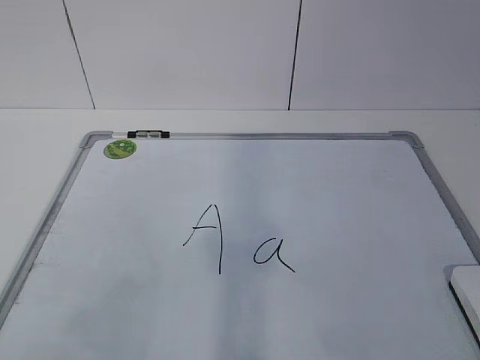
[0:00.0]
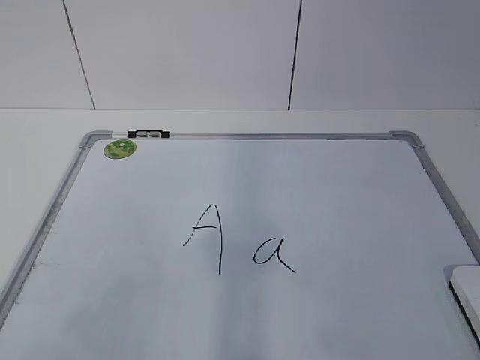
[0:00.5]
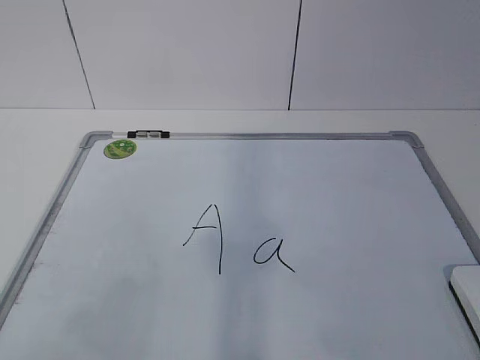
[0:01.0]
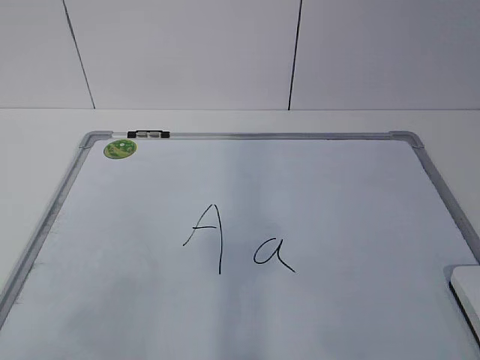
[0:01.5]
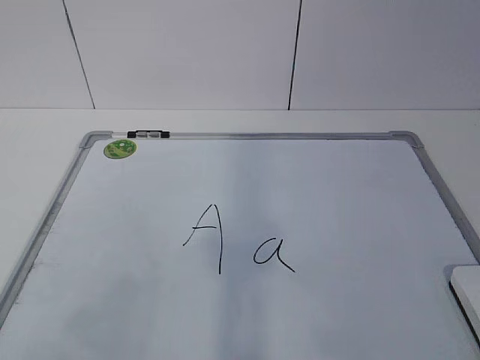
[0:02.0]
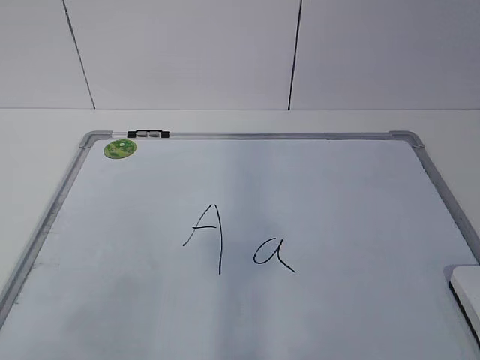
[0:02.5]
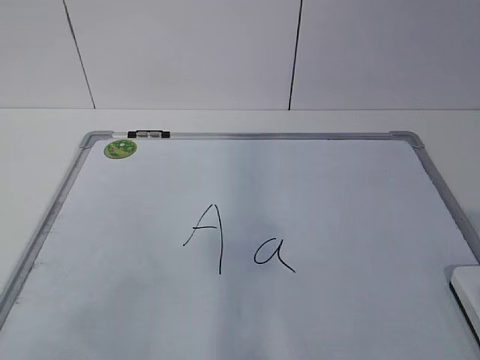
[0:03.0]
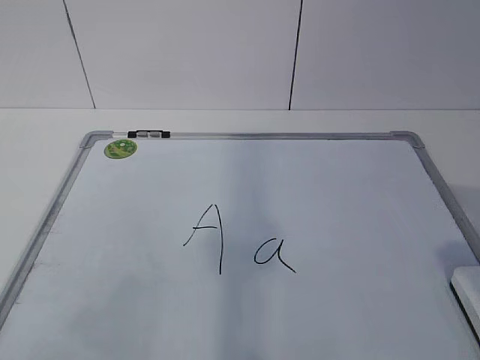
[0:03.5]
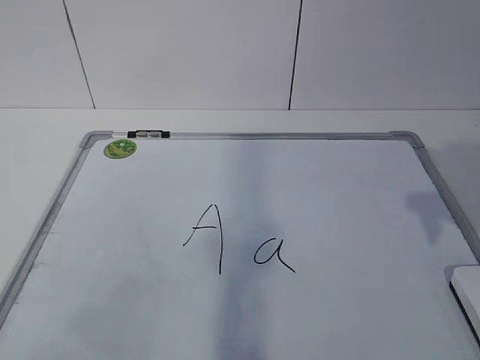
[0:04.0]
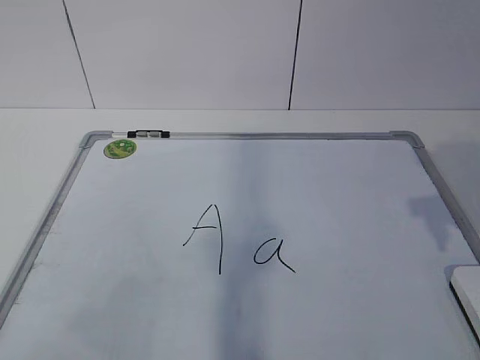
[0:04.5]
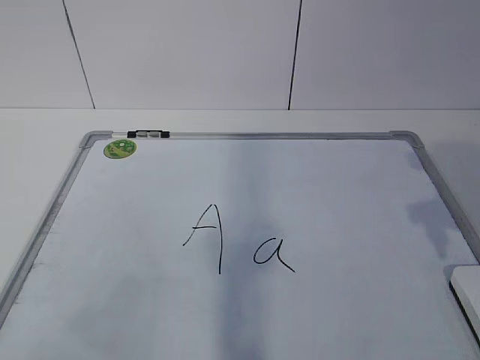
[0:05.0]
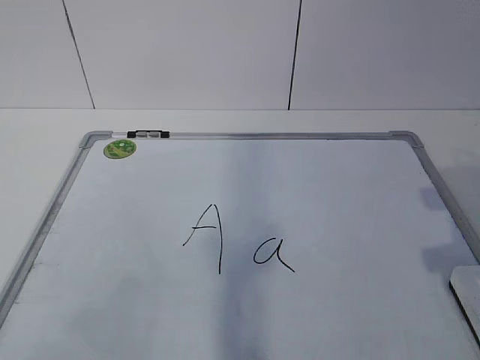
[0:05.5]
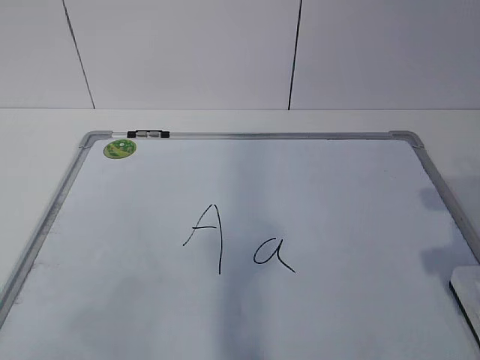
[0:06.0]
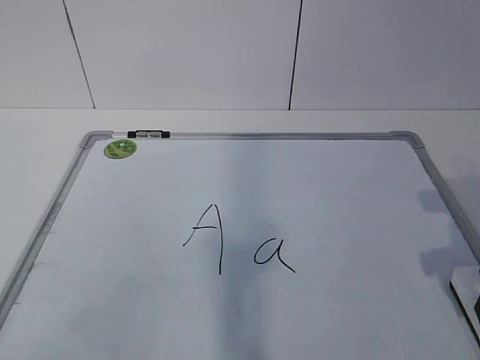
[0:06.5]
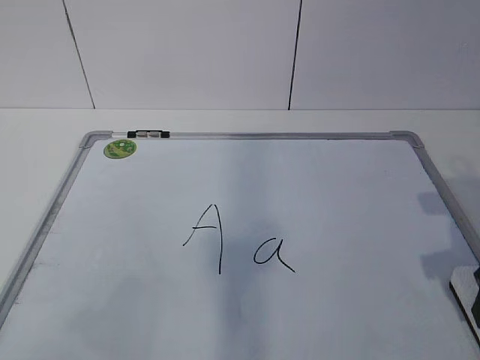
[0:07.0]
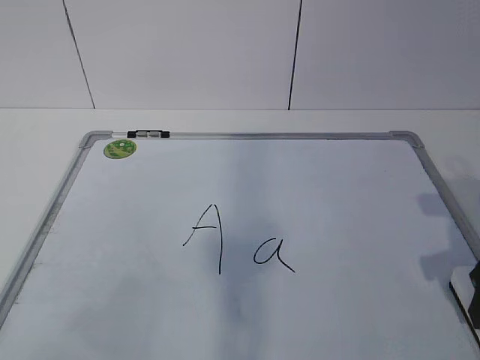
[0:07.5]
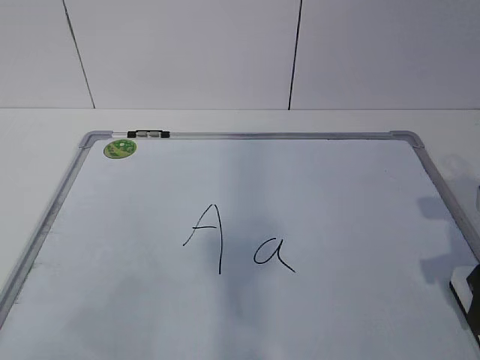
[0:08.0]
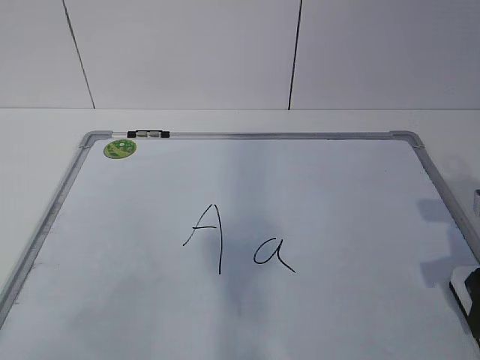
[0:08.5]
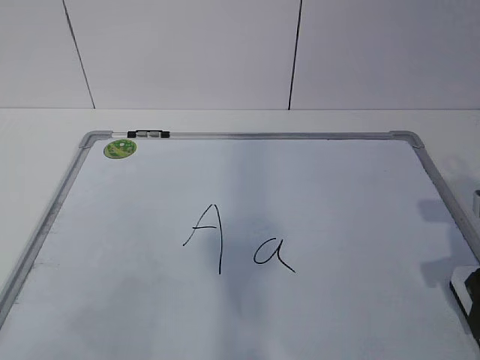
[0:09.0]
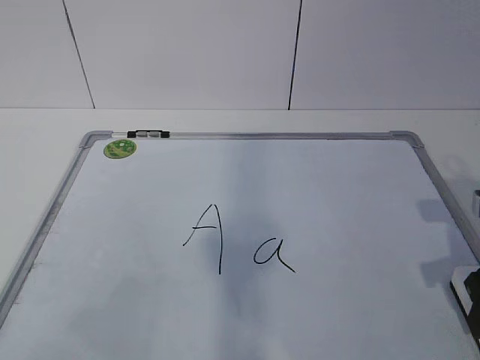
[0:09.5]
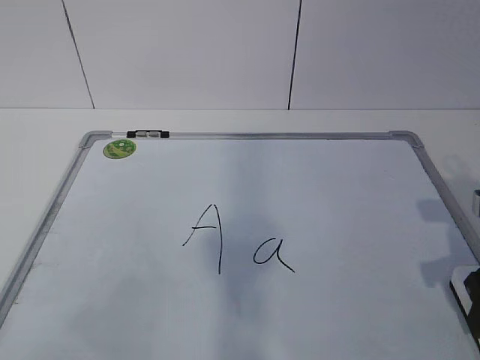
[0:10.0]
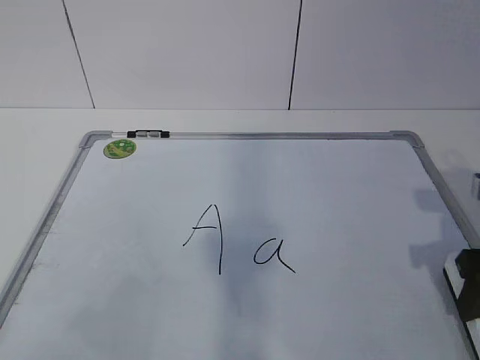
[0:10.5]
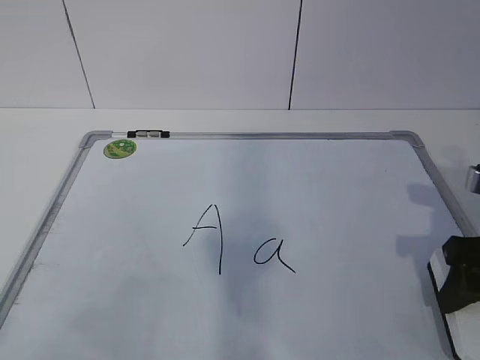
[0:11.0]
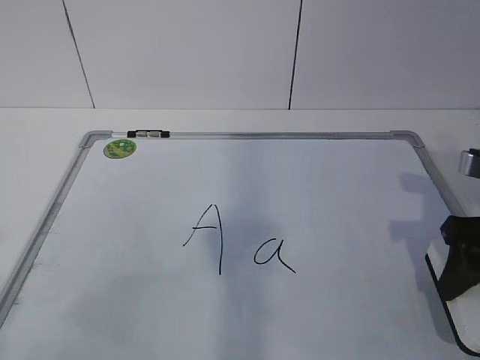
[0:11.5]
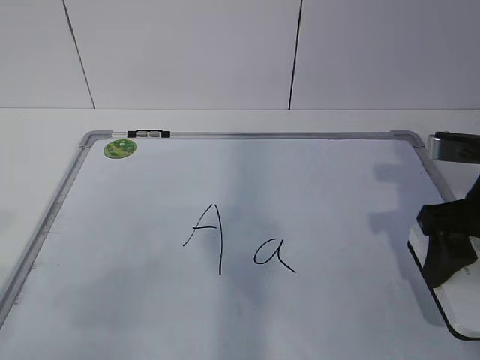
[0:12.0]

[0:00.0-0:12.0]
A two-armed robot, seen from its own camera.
Task of the whole recording: pick up the eraser on the blackboard and erase the letter "a".
0:02.0 to 0:04.0: The right gripper goes roughly 20 cm forward, and opens.
0:04.0 to 0:06.0: The right gripper goes approximately 10 cm downward.
0:10.0 to 0:12.0: The right gripper changes place by some 10 cm.

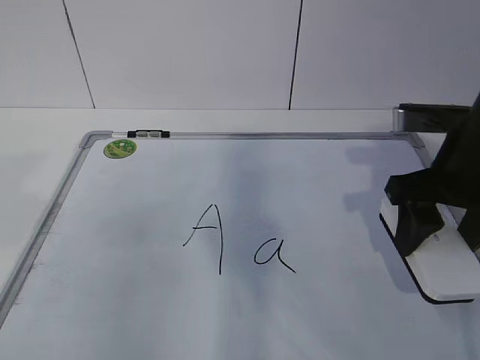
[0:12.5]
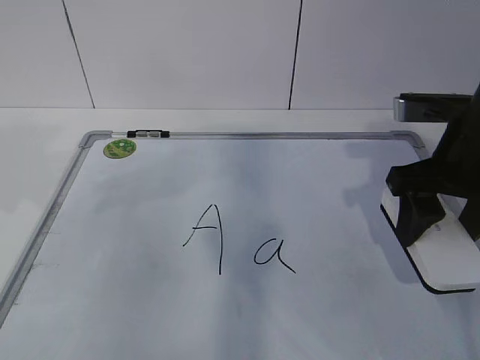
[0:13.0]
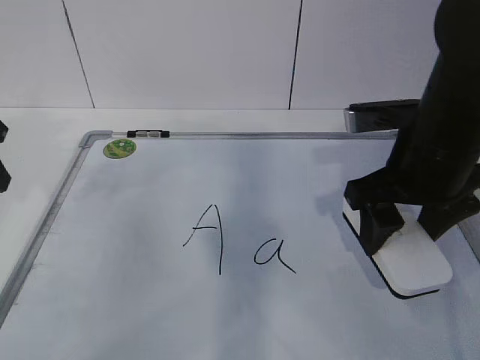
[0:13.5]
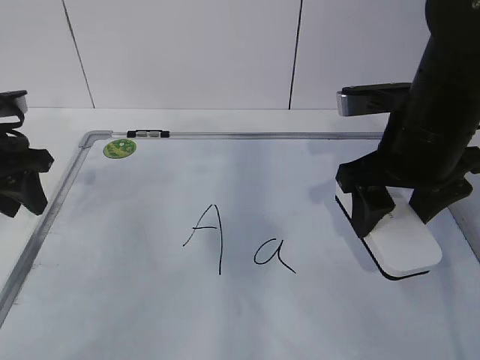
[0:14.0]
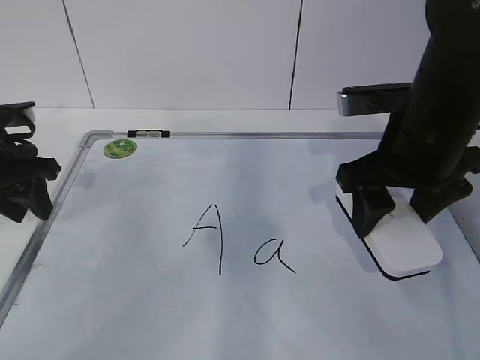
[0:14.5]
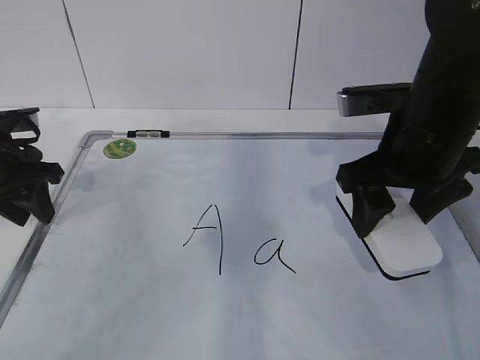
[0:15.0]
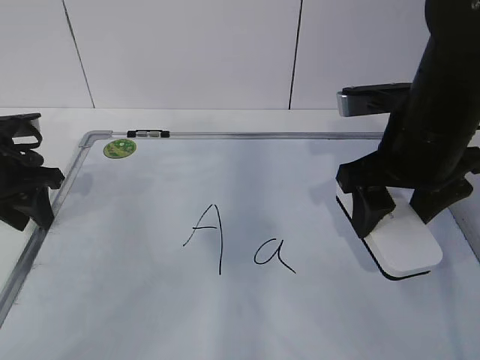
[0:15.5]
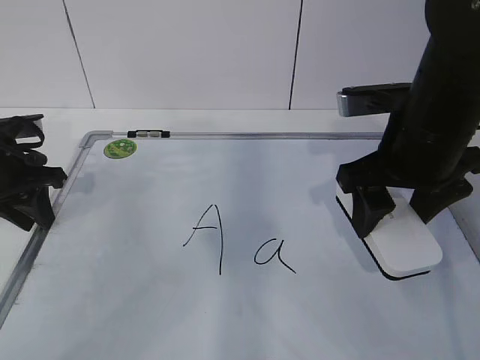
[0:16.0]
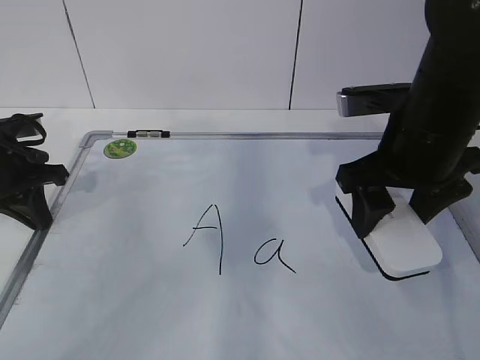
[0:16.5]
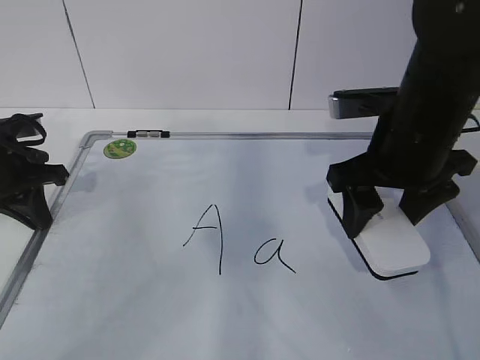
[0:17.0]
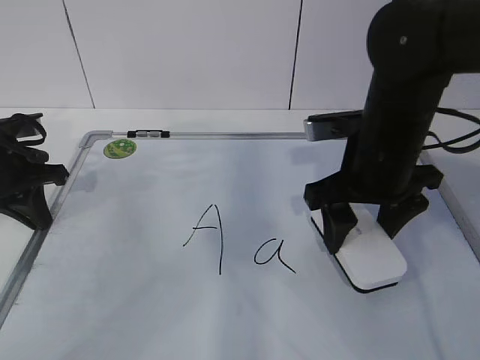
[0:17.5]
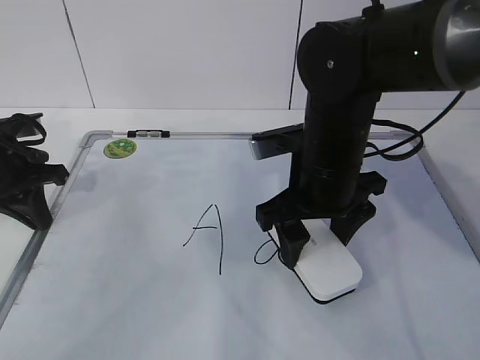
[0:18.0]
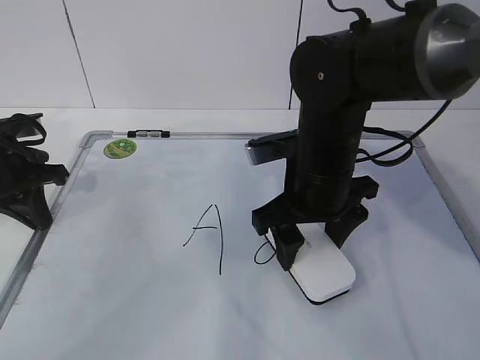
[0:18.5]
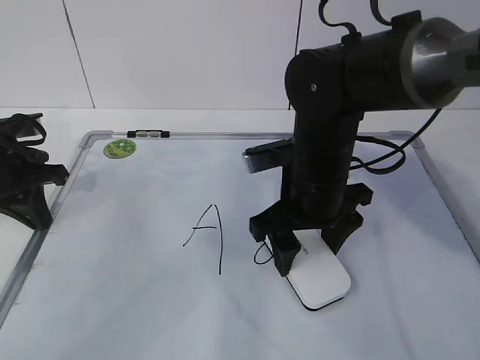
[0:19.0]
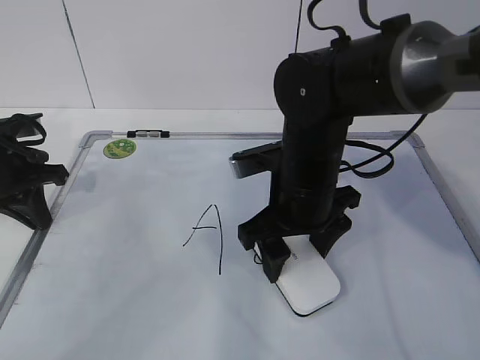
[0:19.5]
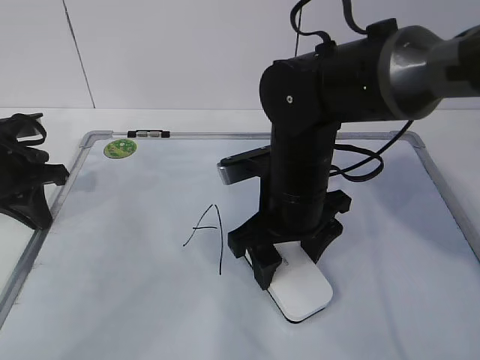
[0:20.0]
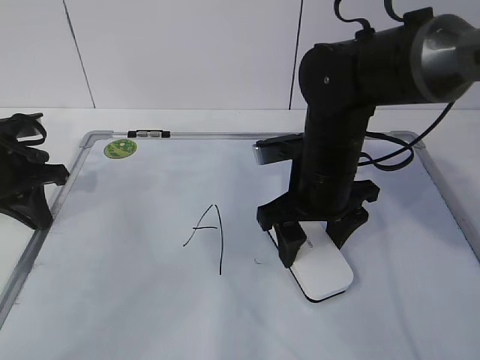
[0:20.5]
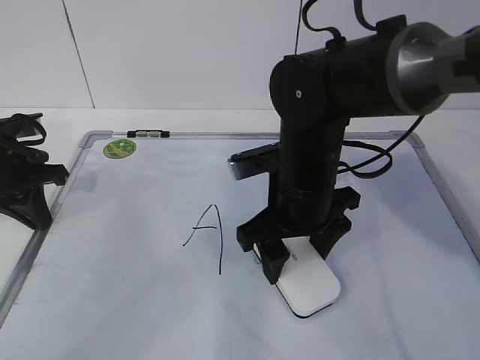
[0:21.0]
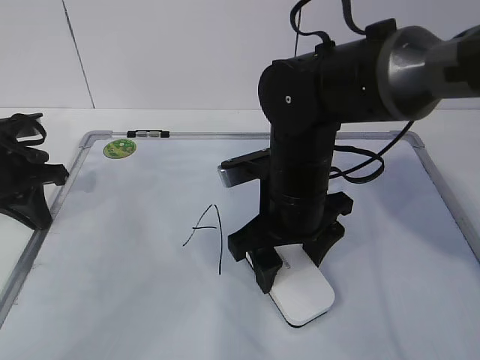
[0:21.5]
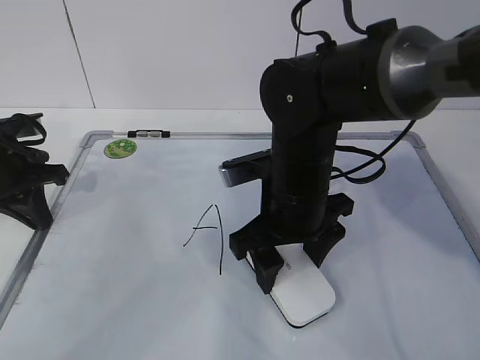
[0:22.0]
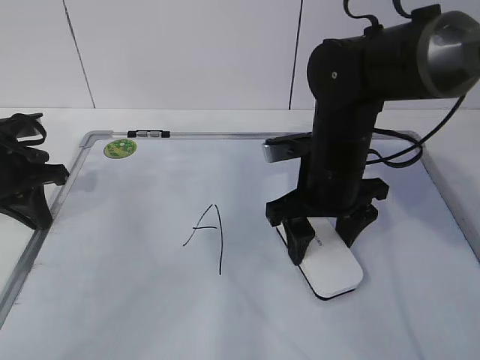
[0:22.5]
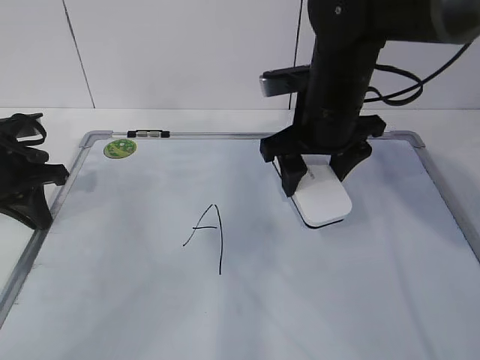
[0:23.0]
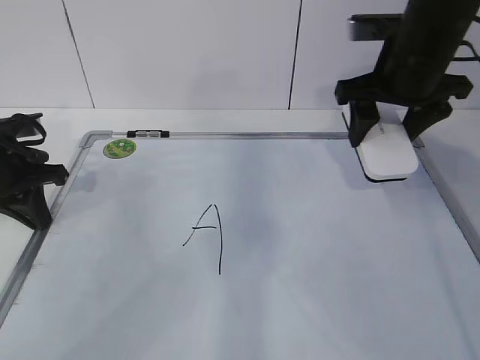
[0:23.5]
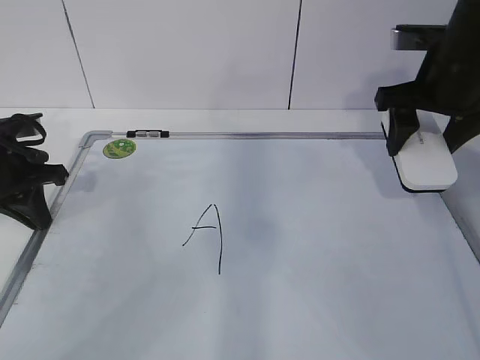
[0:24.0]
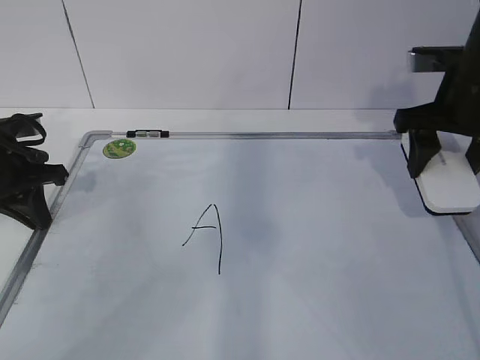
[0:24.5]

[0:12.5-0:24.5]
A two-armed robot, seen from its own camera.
Task of the whole recording: pick up the eraser on the blackboard and erase the letter "a".
Step, 0:14.0 to 0:18.5: Erase the letter a with your right hand.
Step, 0:19.0 to 0:23.5: Put down the eraser with your right hand.
0:12.5 to 0:14.5: The left gripper is displaced forward and downward by about 25 cm.
0:14.5 to 0:16.5: The left gripper closes up.
0:16.5 to 0:18.5: The right gripper goes roughly 10 cm to the left and downward.
0:18.5 to 0:22.5: The grippers stay close to where they were, moving slightly.
0:22.5 to 0:24.5: The right gripper shifts some 15 cm to the right and upward.

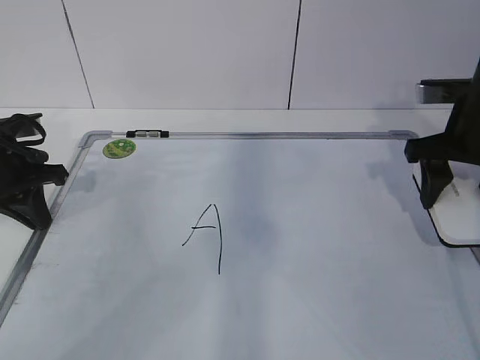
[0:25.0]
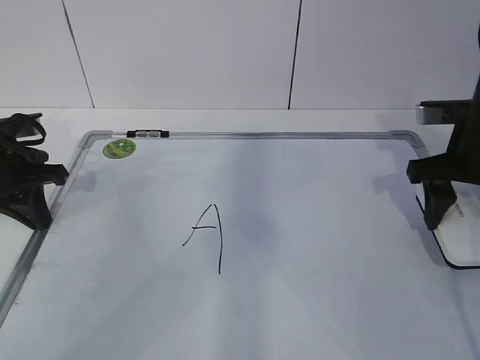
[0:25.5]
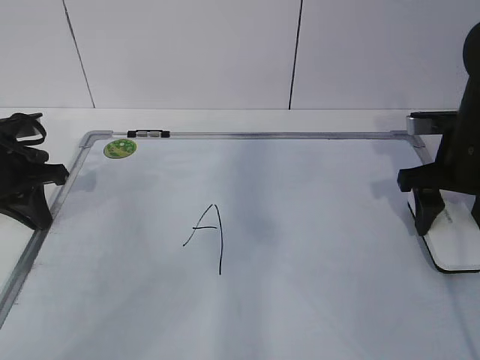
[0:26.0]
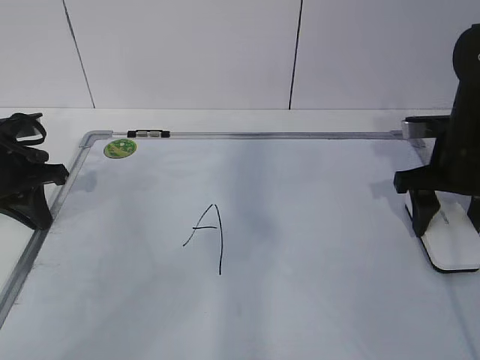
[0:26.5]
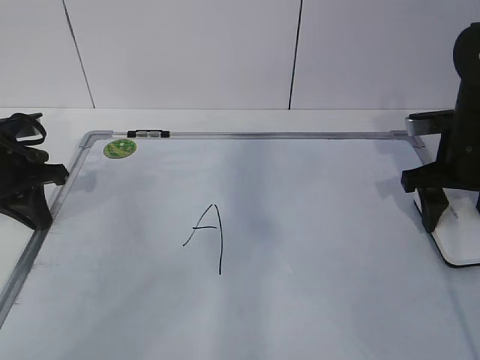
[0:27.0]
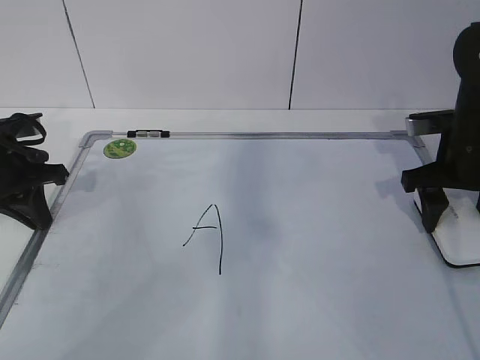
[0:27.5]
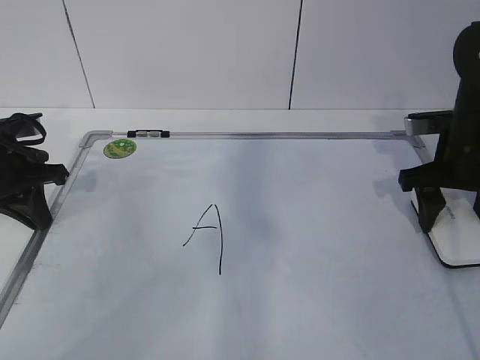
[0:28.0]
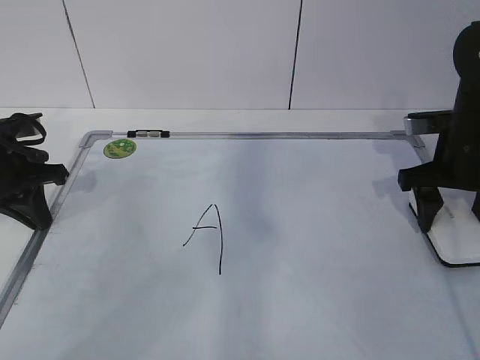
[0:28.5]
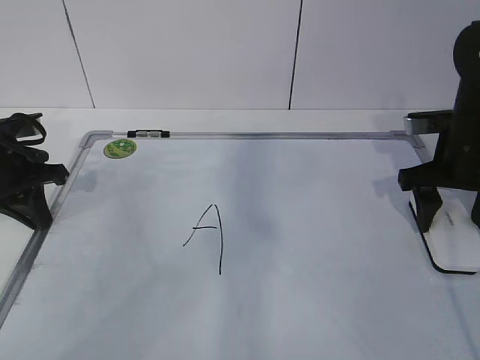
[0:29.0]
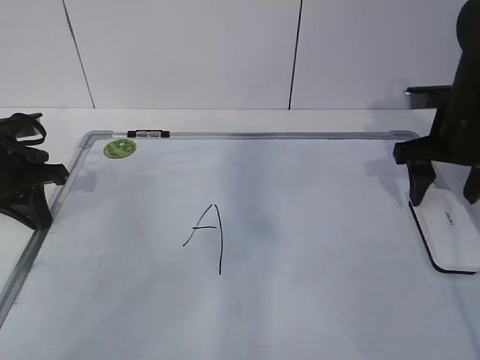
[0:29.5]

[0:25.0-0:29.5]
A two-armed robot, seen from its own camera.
Task of the whole recording: pick up the eraser on the blackboard and erase the letter "a".
0:25.0 to 0:27.0: There are only small adjustments of the grippers.
0:27.0 to 0:29.5: The right gripper opens up.
